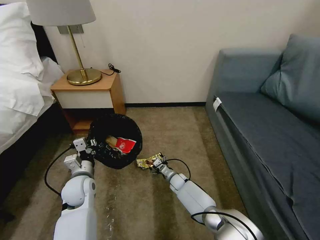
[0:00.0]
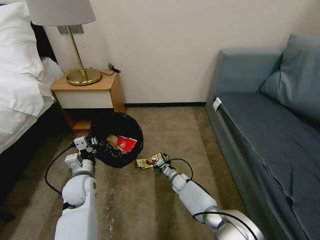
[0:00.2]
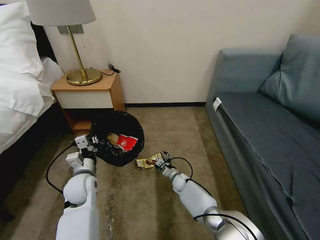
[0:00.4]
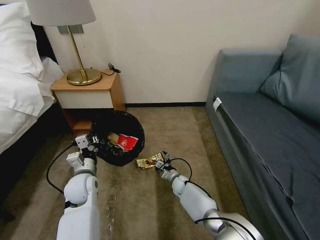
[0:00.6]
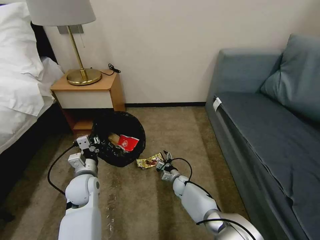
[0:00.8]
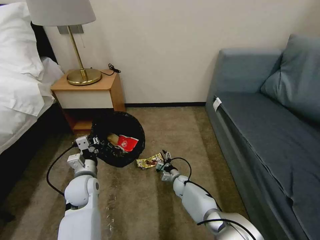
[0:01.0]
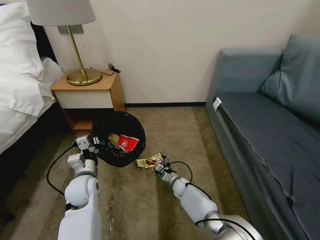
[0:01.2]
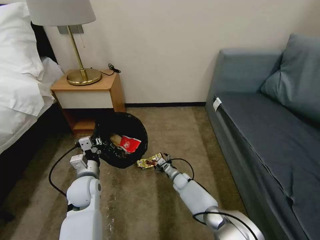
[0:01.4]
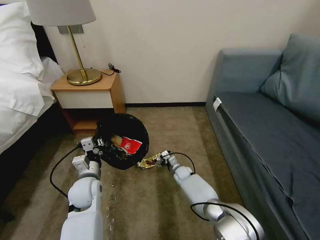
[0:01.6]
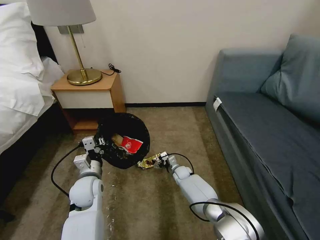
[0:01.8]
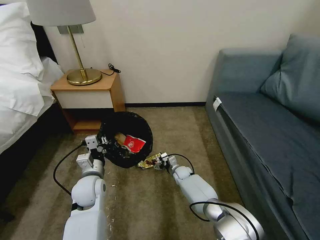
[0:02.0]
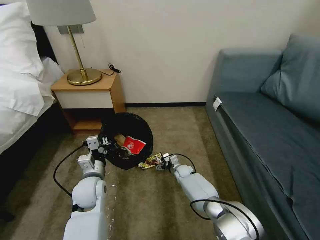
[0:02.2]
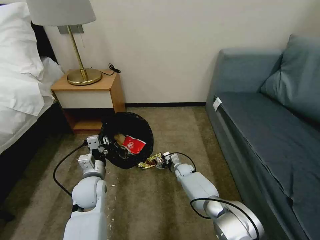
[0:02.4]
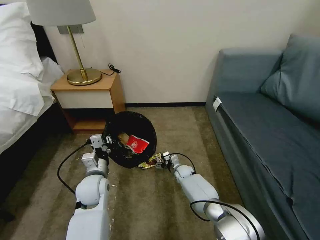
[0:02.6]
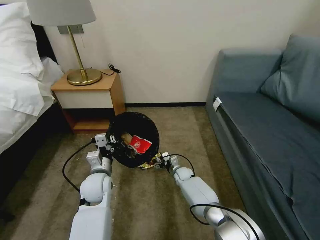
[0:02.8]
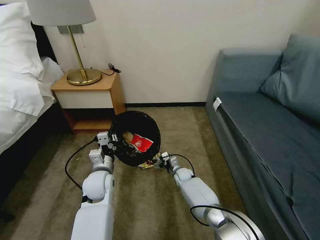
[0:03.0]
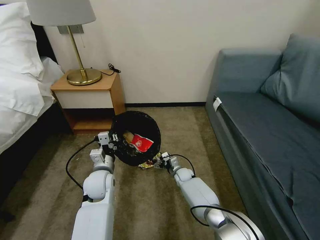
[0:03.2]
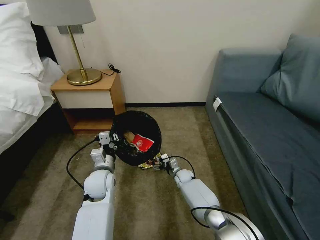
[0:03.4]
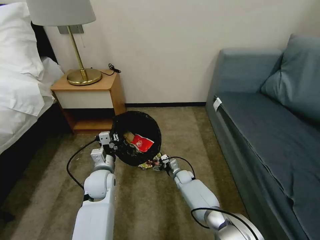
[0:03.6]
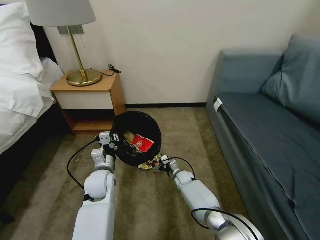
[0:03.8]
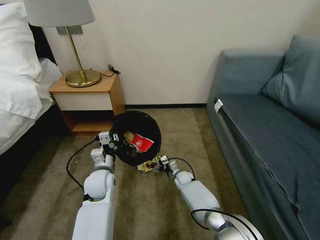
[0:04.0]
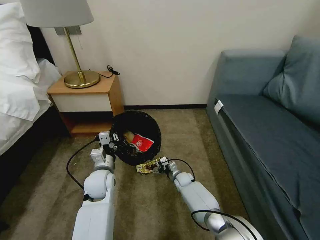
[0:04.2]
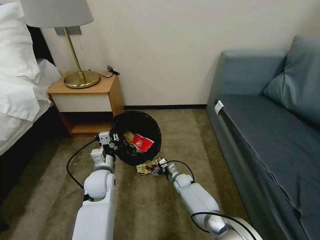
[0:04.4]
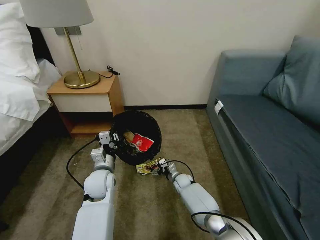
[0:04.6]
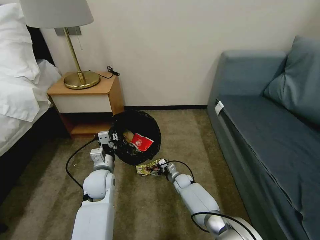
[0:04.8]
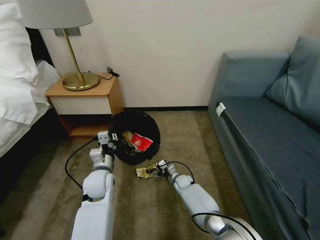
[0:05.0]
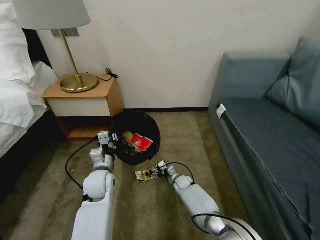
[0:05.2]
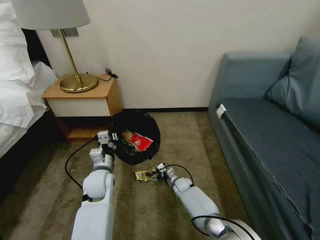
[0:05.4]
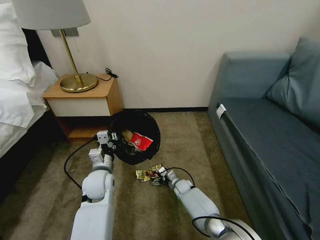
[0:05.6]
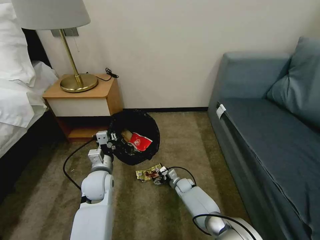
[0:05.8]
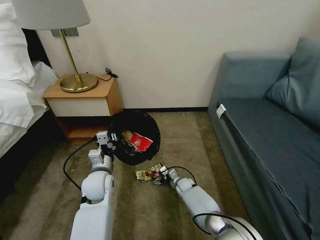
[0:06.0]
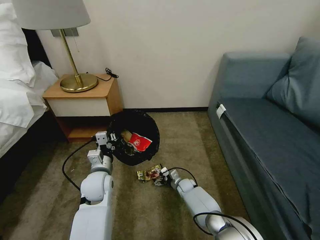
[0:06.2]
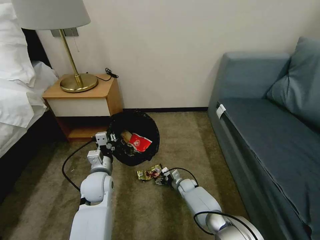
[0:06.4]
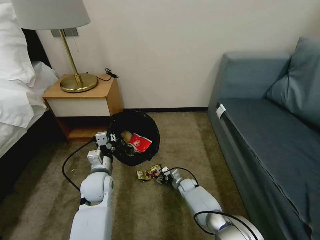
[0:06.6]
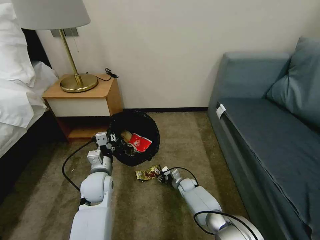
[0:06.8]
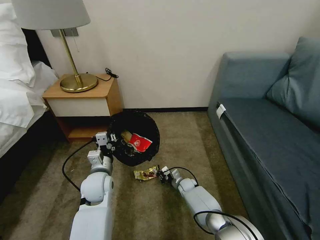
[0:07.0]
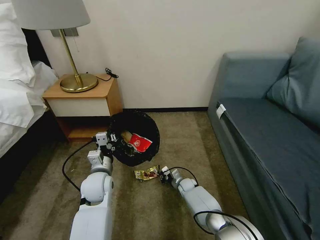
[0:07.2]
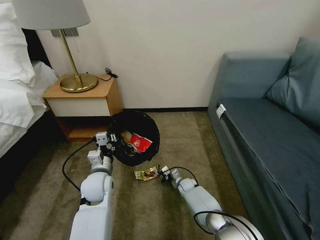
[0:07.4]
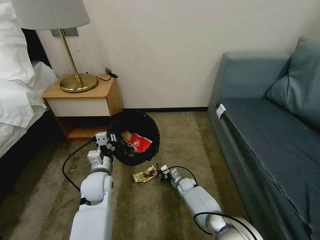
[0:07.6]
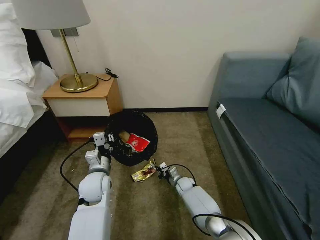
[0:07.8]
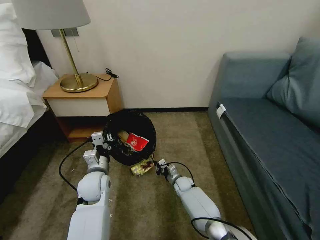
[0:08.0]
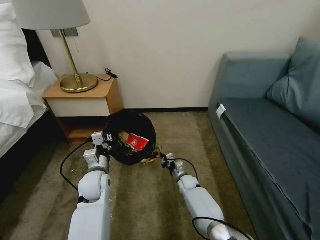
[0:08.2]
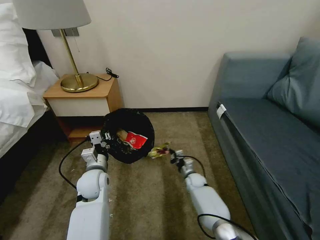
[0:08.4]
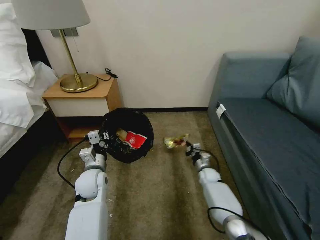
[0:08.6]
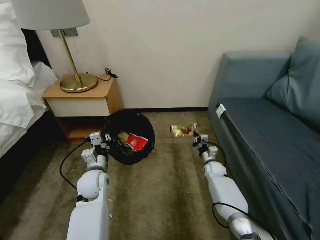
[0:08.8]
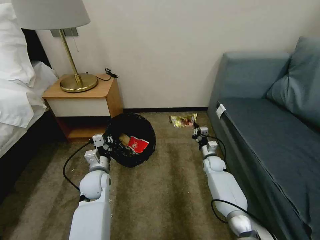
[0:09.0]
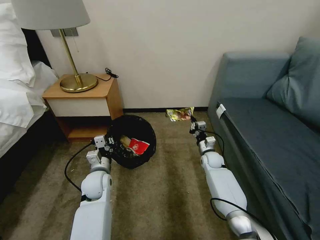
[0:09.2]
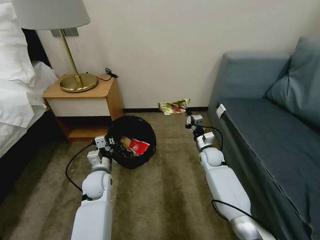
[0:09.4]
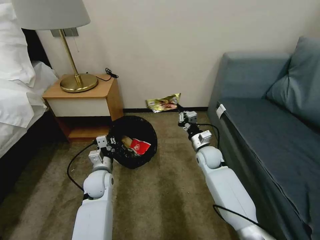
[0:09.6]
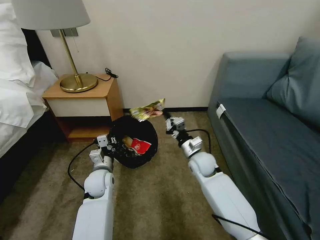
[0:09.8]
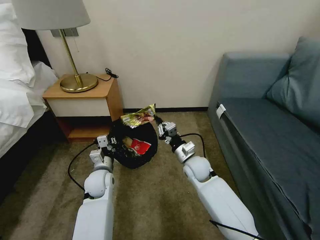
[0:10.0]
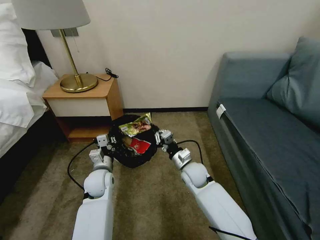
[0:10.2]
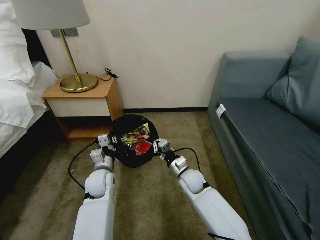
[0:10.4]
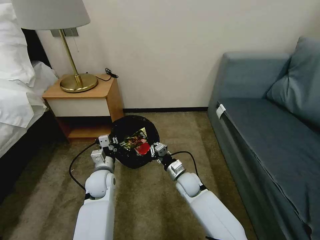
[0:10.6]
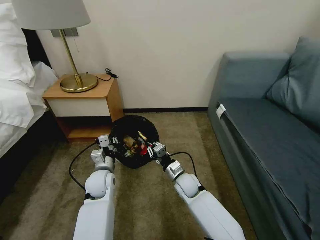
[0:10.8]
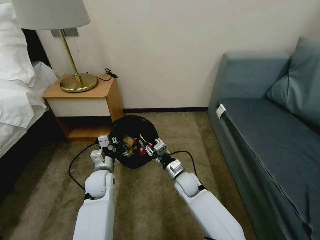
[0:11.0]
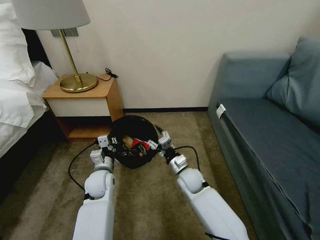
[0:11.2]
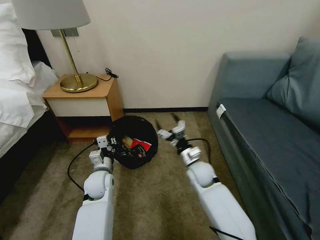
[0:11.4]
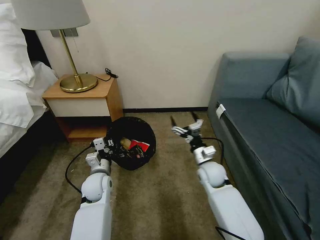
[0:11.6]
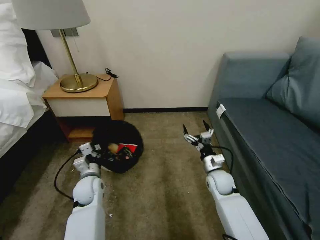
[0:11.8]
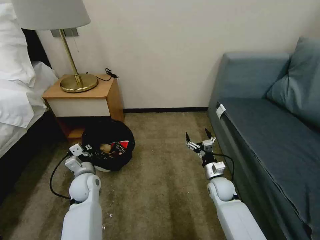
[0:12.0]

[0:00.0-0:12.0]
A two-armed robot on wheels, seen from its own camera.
Task of the whole recording: Pick up the trash bin, then pick up the garbage on the floor and place it into the trash bin.
0:01.6 to 0:04.4: The grippers move only a little.
0:04.4 to 0:06.0: The grippers stay close to where they were, moving slightly.
0:06.0 to 0:07.6: The right gripper closes up.
0:07.6 to 0:09.0: The right gripper travels upward, to the right and forward by approximately 20 cm.
0:09.0 to 0:10.4: The right gripper shifts about 20 cm to the left, backward and upward.
0:10.4 to 0:12.0: The left gripper goes roughly 5 cm to the left. The right gripper goes some 10 cm to the right, and opens up.

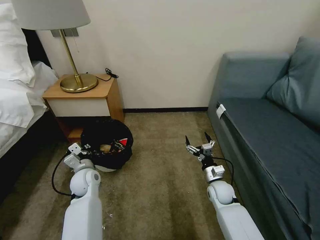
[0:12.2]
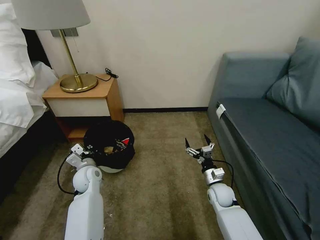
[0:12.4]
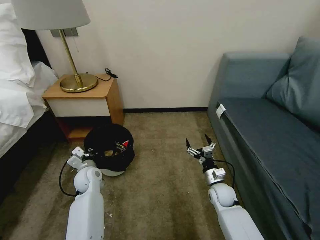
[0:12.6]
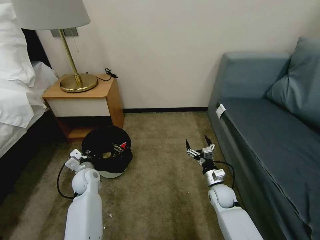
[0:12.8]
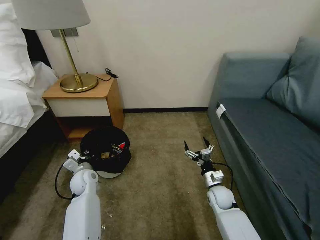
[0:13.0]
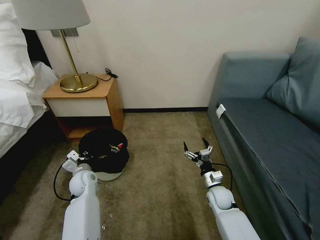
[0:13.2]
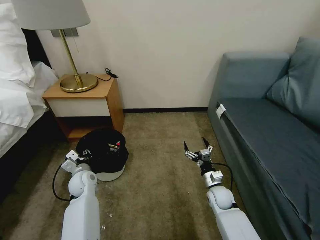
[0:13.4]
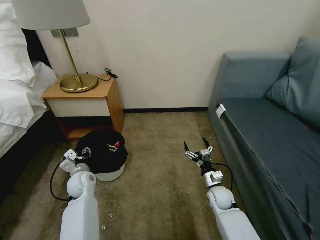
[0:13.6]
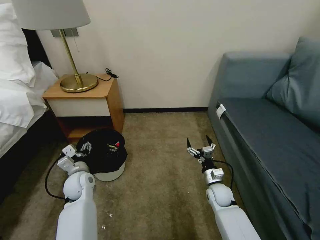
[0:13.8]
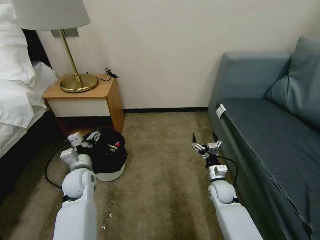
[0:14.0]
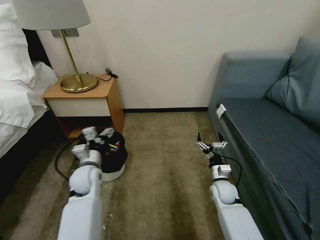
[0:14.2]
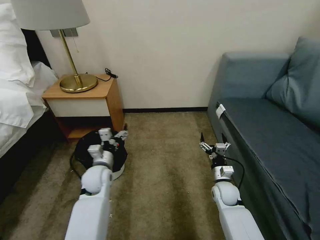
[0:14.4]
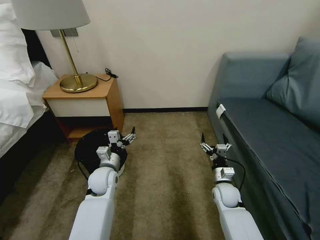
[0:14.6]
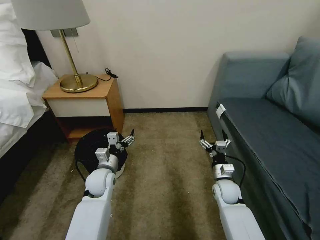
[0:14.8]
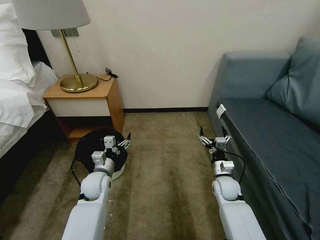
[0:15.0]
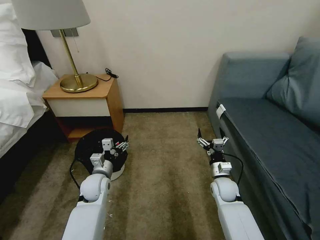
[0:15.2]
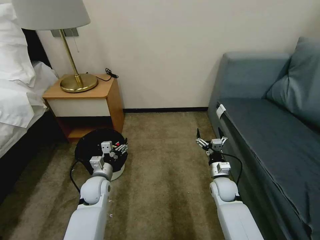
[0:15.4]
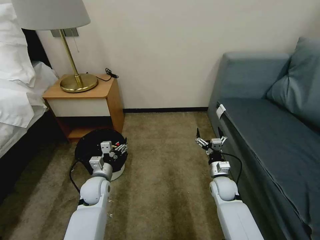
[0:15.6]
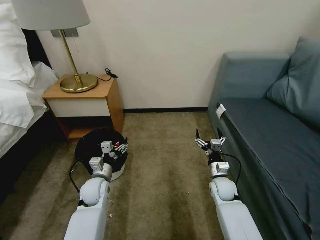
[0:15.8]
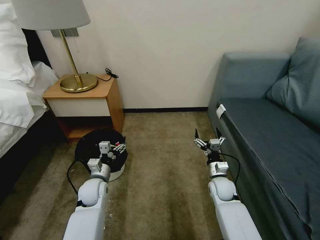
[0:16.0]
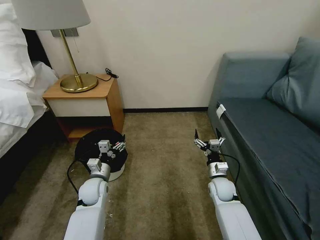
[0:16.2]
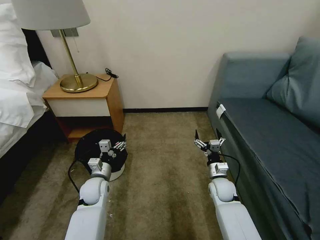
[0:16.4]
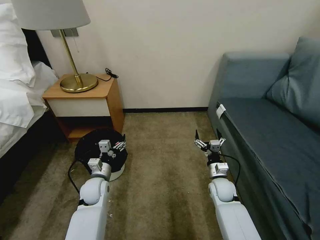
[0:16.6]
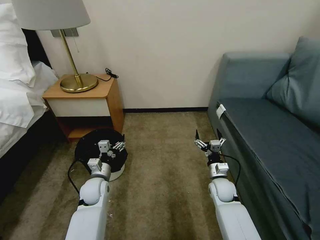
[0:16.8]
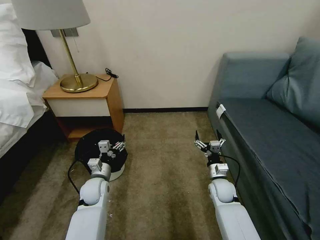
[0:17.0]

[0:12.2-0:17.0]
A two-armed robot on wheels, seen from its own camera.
Task of the whole recording: Pick up the trash bin, then pick up the garbage on the floor and place it into the trash bin.
0:12.2 to 0:13.8: The left gripper opens its fingers.
0:13.8 to 0:15.4: The left gripper moves to the right, some 5 cm.
0:15.4 to 0:17.0: There are only small adjustments of the grippers.
